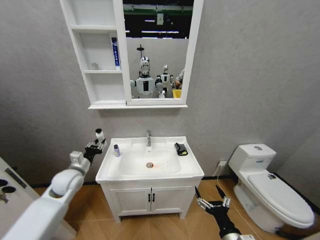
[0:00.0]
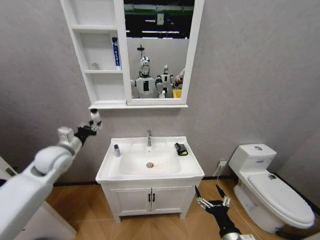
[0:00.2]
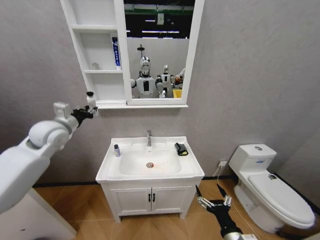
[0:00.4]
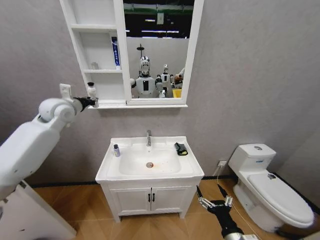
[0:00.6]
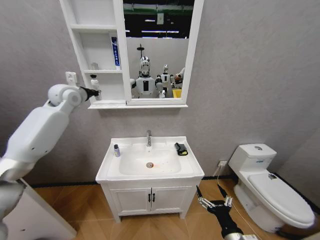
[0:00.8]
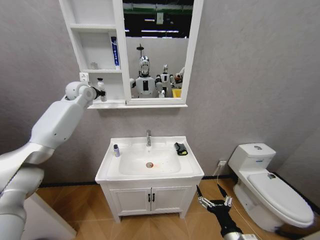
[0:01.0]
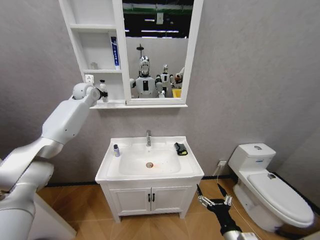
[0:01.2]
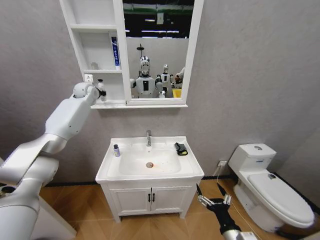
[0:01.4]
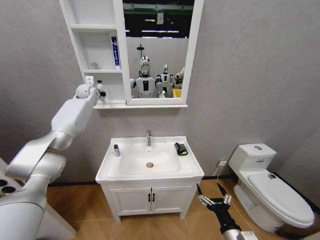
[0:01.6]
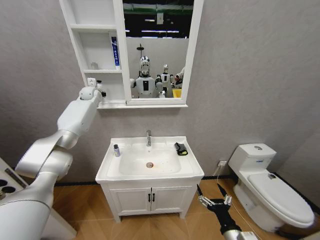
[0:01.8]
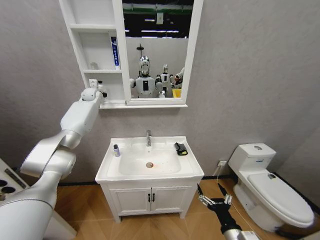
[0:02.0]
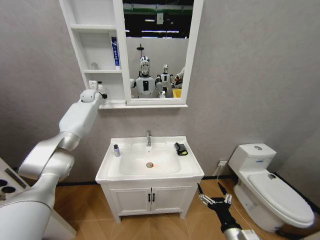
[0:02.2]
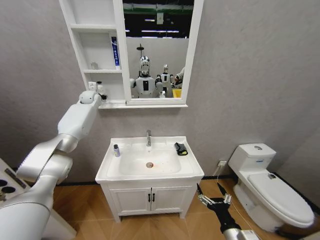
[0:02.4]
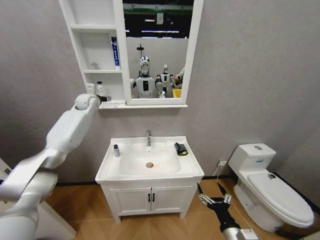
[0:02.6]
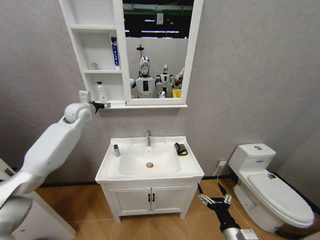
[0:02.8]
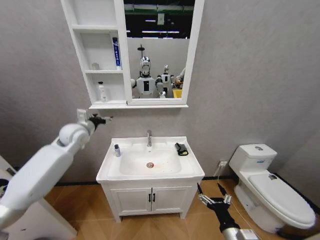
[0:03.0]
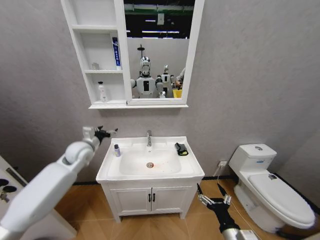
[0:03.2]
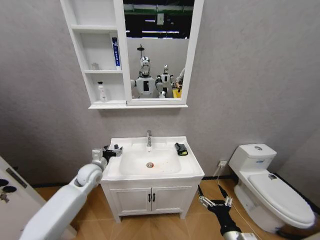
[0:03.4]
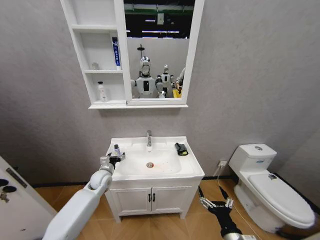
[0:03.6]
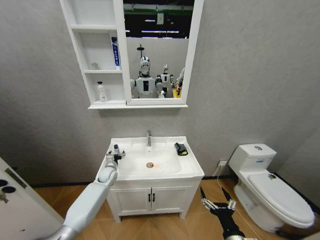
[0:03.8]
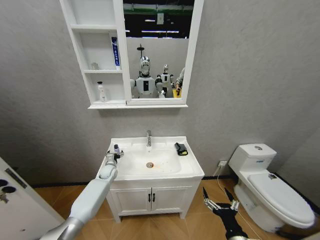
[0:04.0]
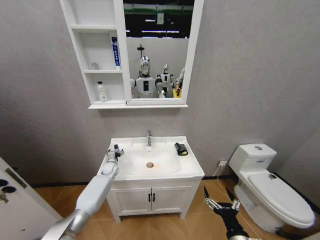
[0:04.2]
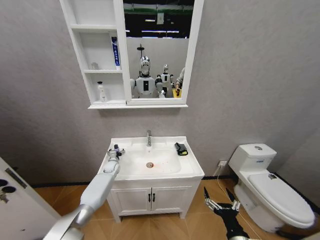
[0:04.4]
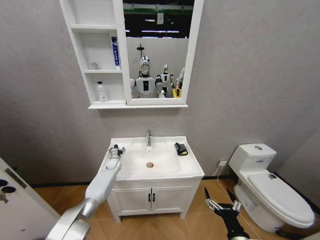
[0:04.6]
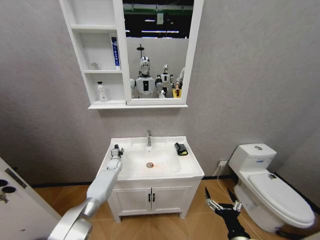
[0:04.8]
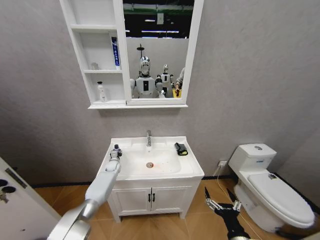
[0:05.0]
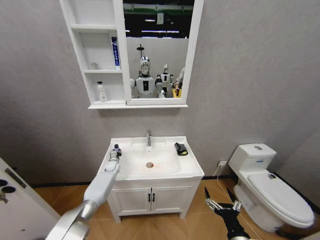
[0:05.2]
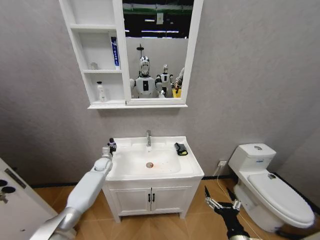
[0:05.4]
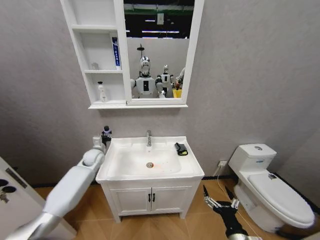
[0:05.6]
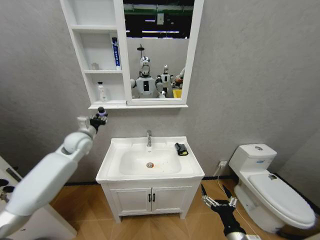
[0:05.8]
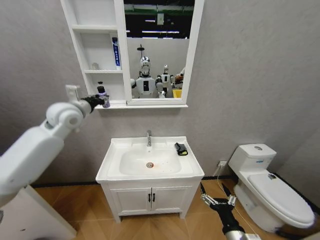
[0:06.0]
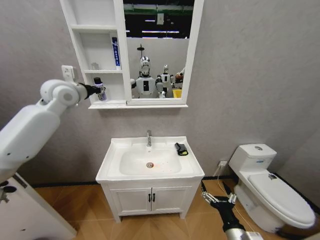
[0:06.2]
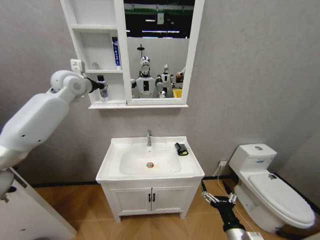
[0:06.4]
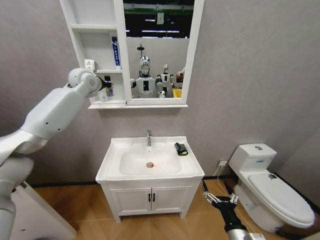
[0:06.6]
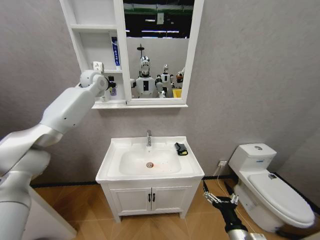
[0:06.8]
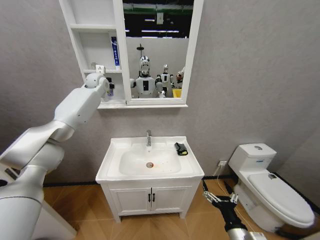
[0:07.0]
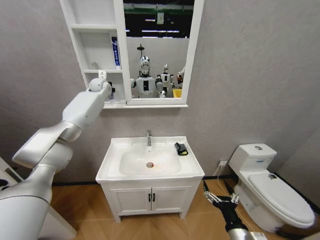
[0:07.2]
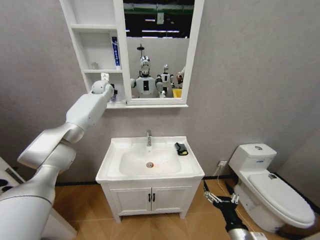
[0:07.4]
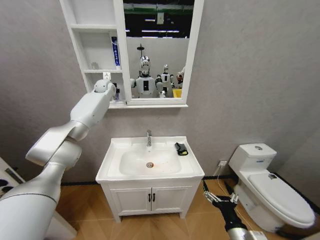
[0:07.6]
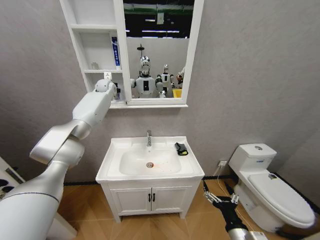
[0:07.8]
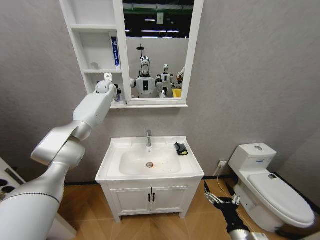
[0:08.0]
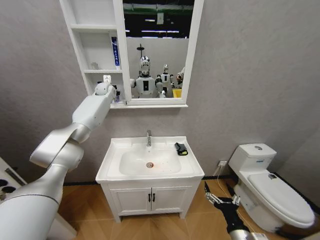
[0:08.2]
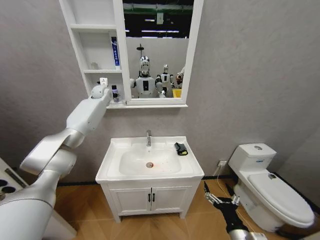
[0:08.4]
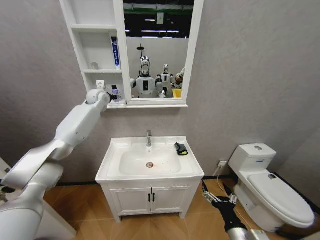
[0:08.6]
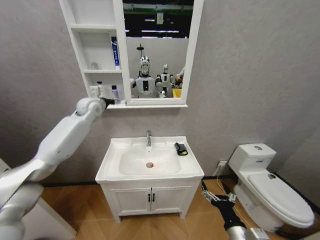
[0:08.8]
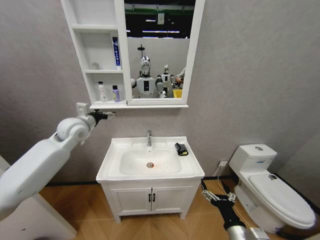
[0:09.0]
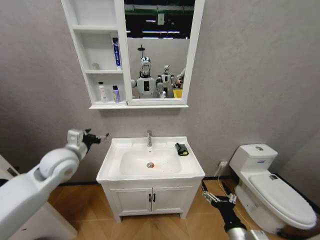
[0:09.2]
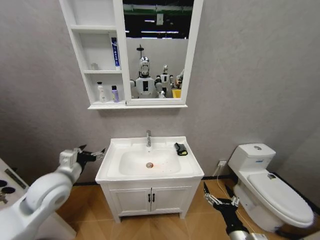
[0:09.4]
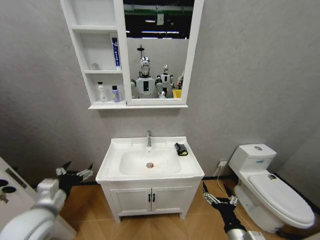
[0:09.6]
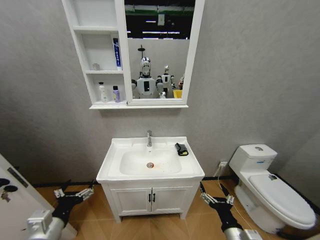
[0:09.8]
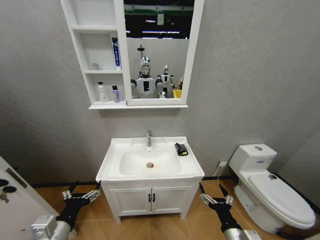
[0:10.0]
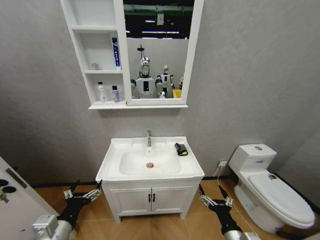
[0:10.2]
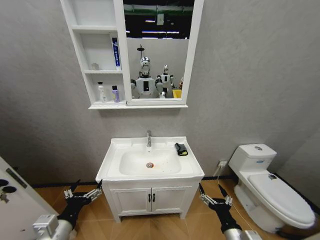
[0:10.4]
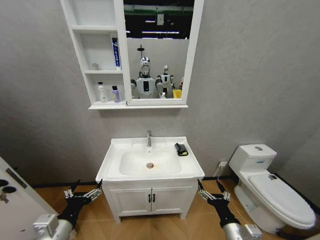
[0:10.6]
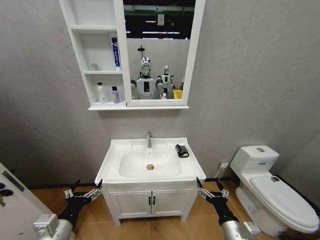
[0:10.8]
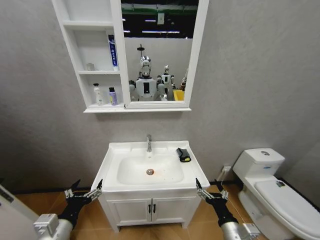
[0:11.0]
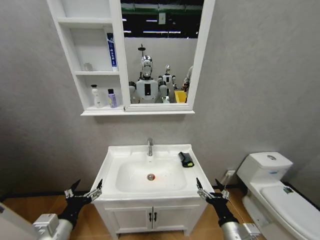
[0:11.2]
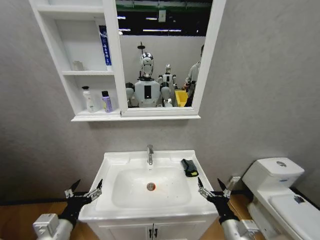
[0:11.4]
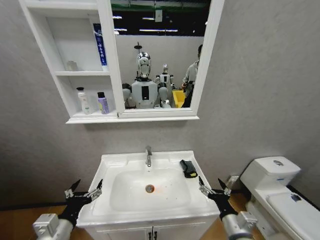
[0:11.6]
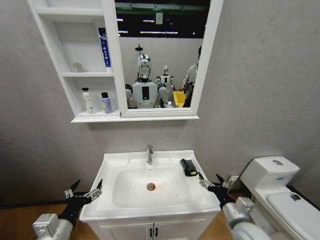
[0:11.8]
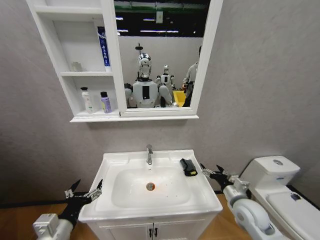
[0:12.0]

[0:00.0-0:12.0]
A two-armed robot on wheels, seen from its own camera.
Task of the whole recording: Move facial cleanser and shampoo from washbasin to cabinet, then wipe washbasin with towel.
0:00.0 to 0:01.6: The left gripper goes roughly 40 cm forward and upward.
0:01.6 to 0:03.0: The left gripper travels backward and downward by roughly 20 cm, and opens its fingers.
0:03.0 to 0:04.4: The left gripper moves downward, about 35 cm.
0:04.4 to 0:06.0: The left gripper shifts approximately 40 cm upward, and closes up.
0:06.0 to 0:07.6: The left gripper travels forward by roughly 25 cm.
0:07.6 to 0:09.0: The left gripper shifts roughly 25 cm backward, and opens its fingers.
0:09.0 to 0:10.4: The left gripper is displaced backward and downward by roughly 35 cm.
0:10.4 to 0:12.0: The right gripper heads forward and to the right, covering about 15 cm.

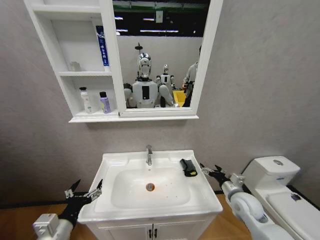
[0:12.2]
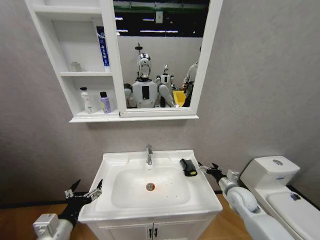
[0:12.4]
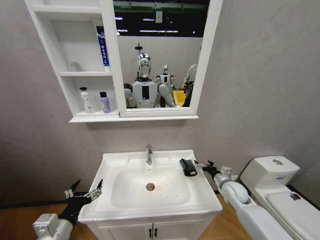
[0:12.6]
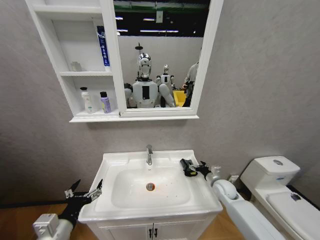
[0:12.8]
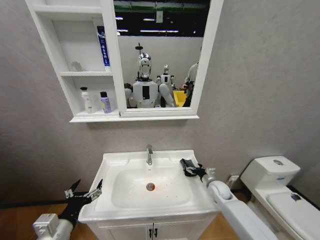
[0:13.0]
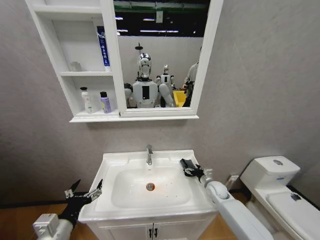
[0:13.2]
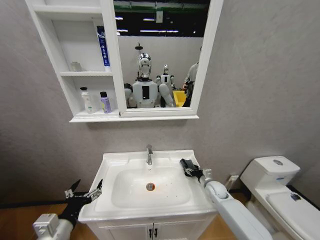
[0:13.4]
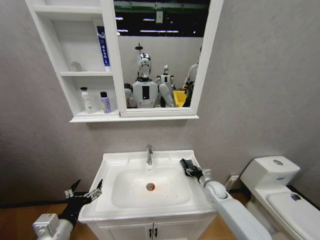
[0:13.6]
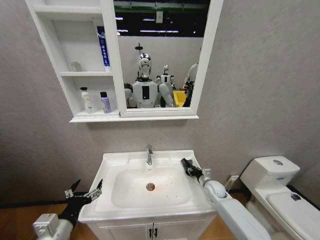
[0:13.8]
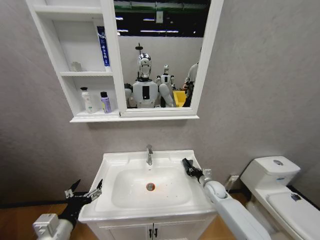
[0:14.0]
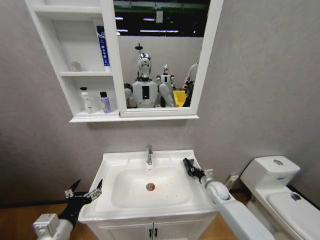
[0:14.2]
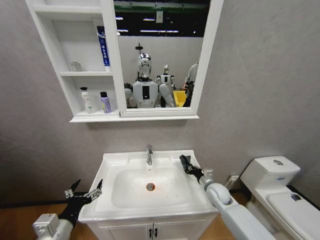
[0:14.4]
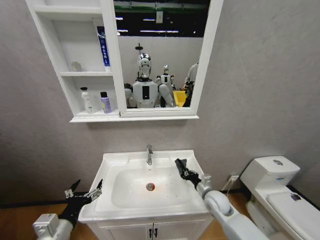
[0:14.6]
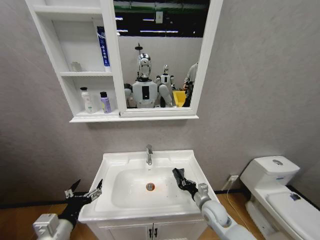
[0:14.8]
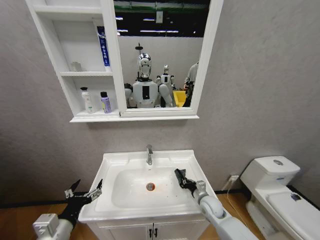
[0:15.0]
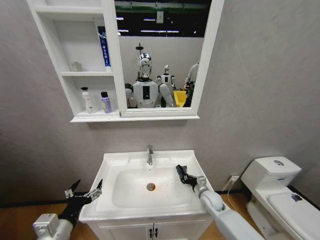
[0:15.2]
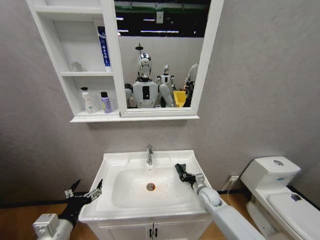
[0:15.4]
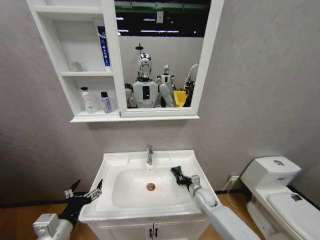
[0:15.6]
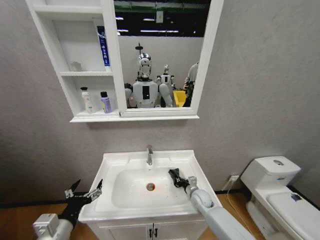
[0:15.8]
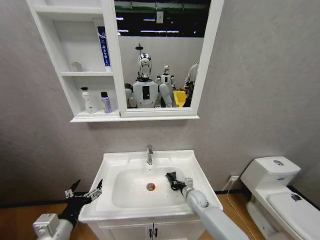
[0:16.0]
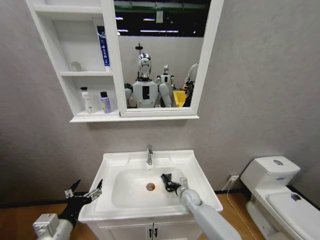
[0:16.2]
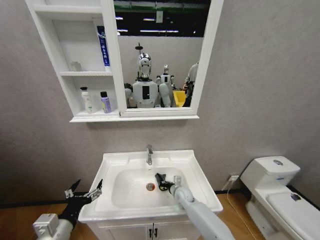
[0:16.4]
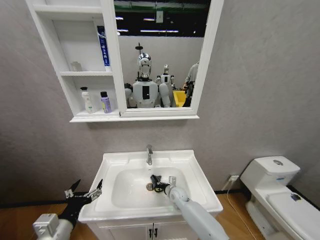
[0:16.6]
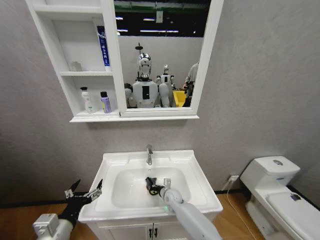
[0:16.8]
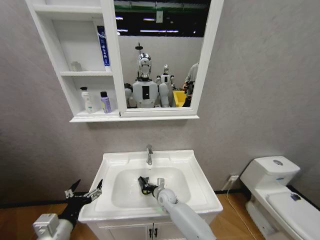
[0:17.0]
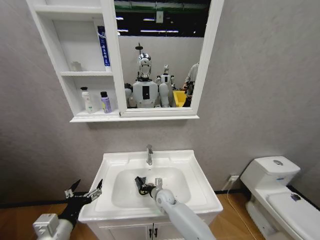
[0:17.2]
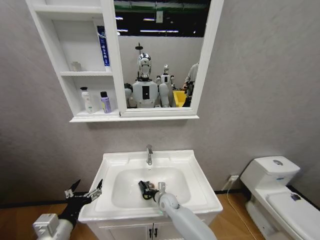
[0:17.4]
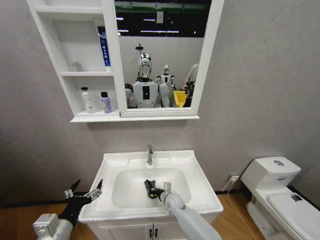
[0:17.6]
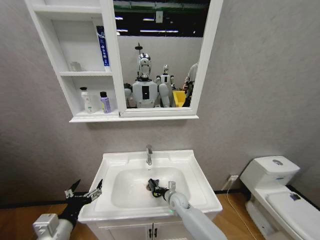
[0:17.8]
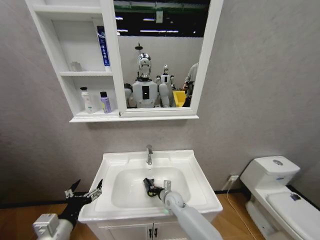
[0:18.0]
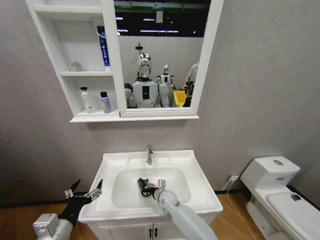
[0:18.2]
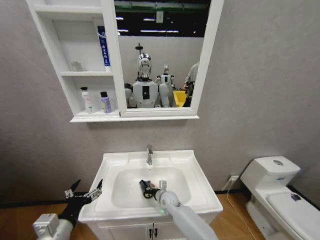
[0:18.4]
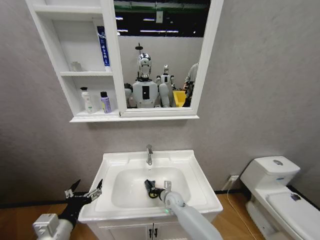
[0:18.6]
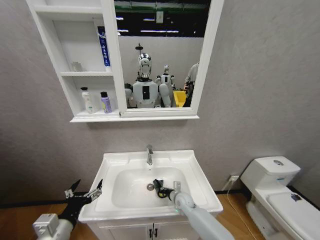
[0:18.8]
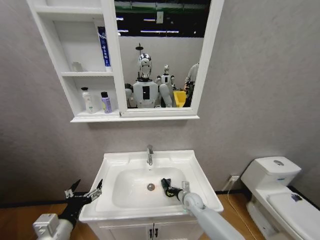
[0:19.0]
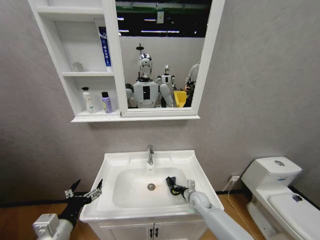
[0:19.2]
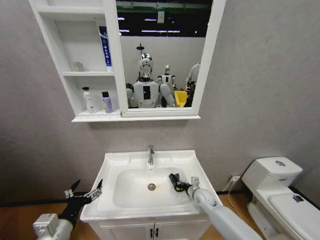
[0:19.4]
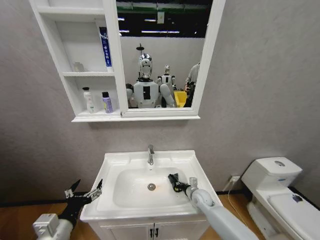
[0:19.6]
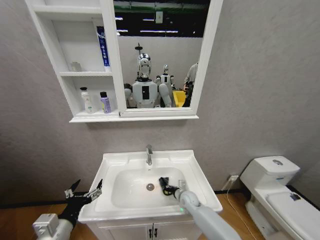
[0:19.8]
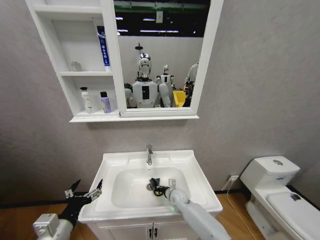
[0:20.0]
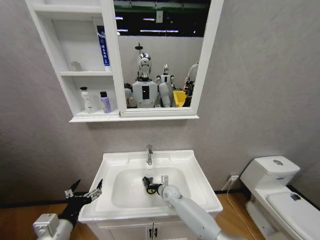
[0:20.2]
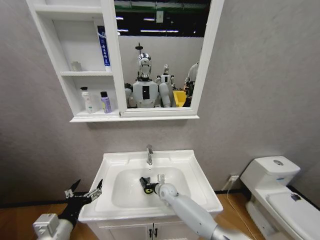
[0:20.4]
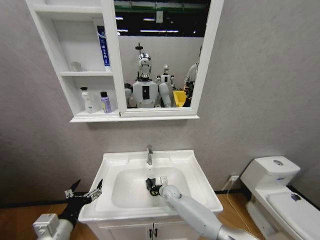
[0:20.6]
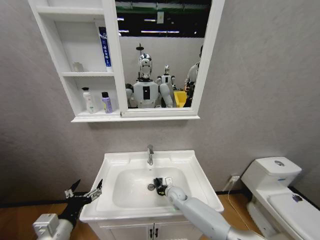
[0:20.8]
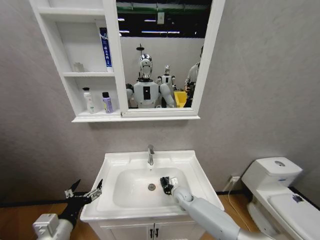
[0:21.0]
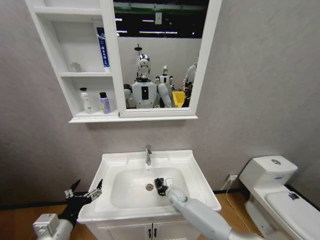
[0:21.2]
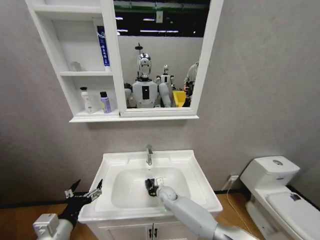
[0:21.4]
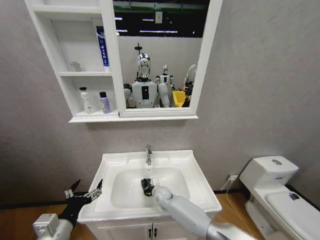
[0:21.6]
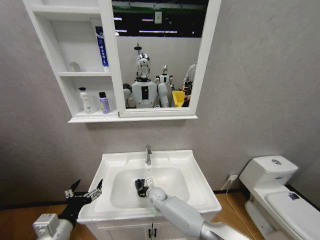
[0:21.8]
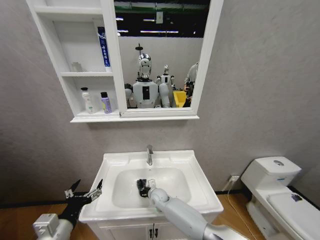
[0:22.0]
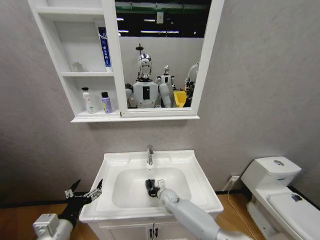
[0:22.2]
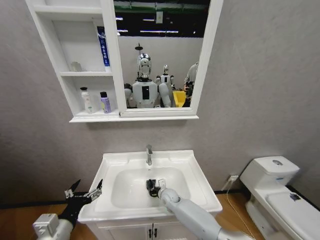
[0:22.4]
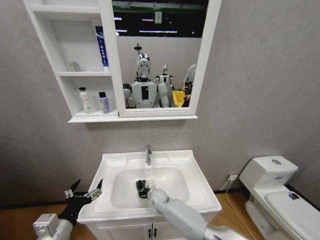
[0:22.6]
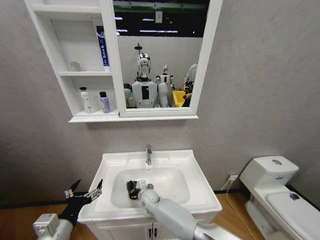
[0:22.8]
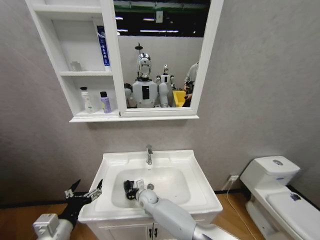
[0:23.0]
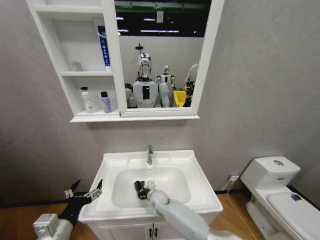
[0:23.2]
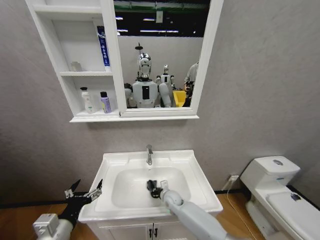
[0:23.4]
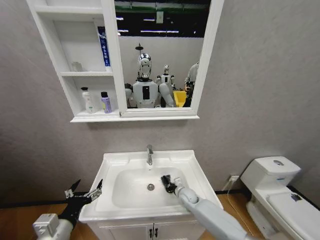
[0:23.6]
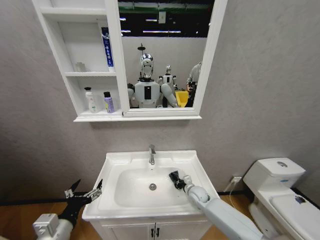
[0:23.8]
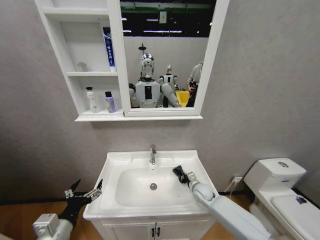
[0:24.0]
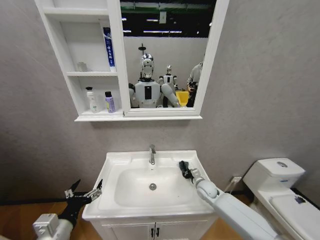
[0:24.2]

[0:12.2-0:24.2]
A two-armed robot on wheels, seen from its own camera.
Task of the whole recording: Move facial cleanser and shampoo from washbasin to cabinet, then wipe washbasin with towel.
0:12.2 to 0:13.8: The right gripper travels forward and downward by about 15 cm, and closes its fingers.
0:13.8 to 0:15.2: The right gripper closes.
0:15.2 to 0:16.6: The right gripper is displaced to the left by about 15 cm.
0:16.6 to 0:18.2: The right gripper goes left and right, approximately 10 cm each way, reversing 2 times.
0:18.2 to 0:19.8: The right gripper is displaced to the right by roughly 10 cm.
0:19.8 to 0:21.2: The right gripper is displaced to the left by some 5 cm.
0:21.2 to 0:22.6: The right gripper moves left and right over about 10 cm, changing direction 2 times.
0:22.6 to 0:24.2: The right gripper goes some 25 cm to the right.
